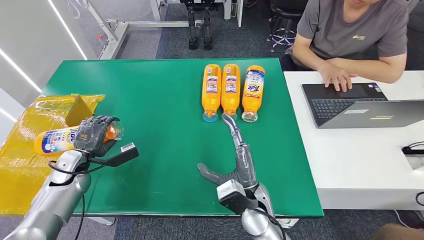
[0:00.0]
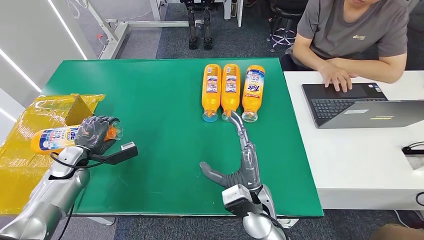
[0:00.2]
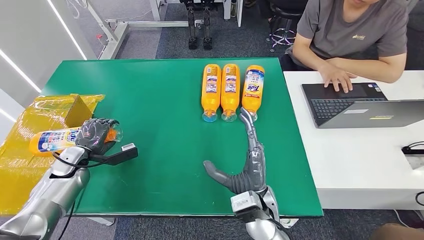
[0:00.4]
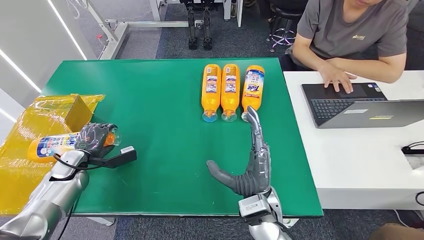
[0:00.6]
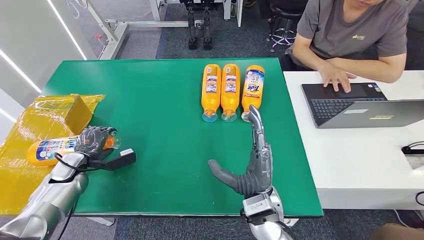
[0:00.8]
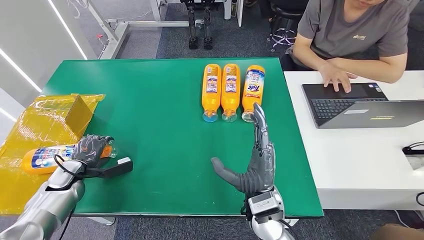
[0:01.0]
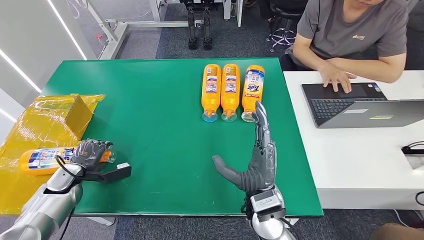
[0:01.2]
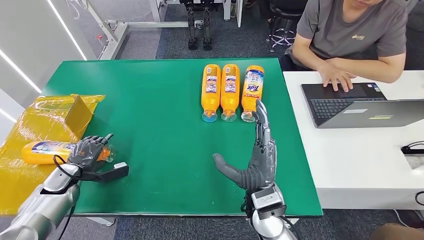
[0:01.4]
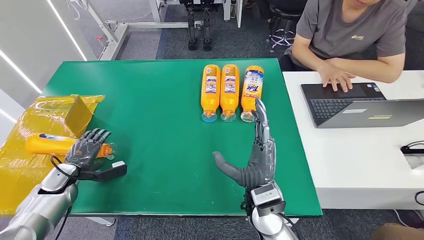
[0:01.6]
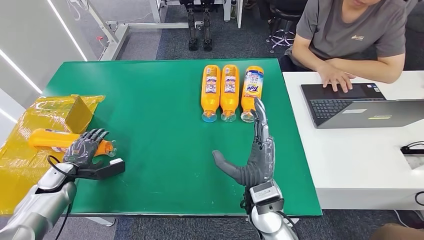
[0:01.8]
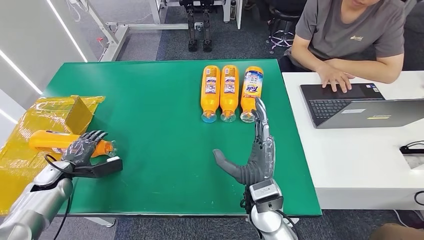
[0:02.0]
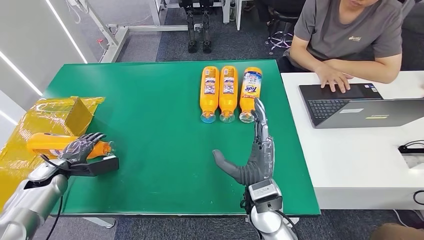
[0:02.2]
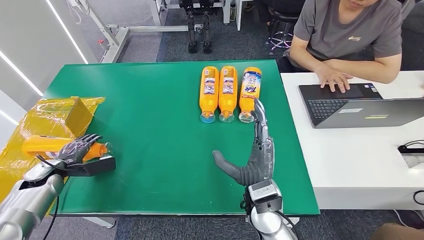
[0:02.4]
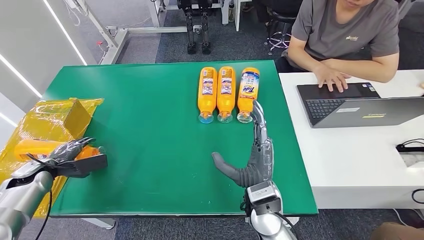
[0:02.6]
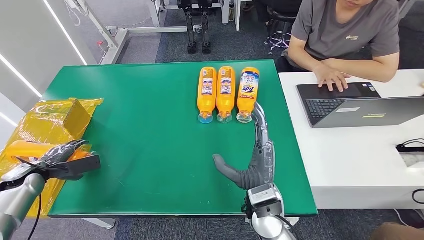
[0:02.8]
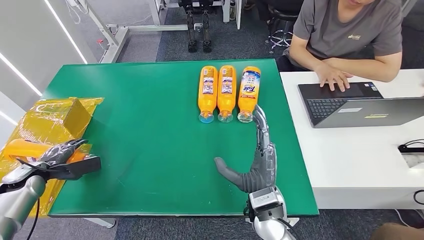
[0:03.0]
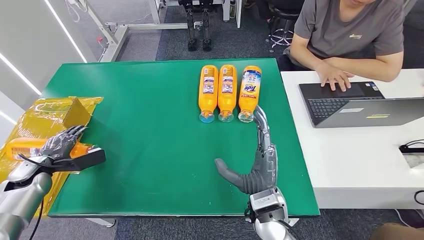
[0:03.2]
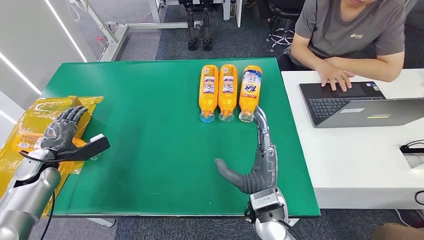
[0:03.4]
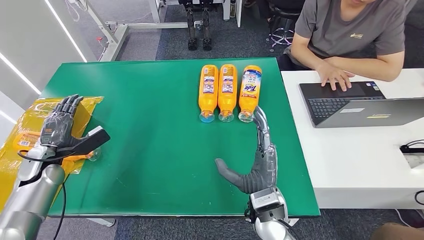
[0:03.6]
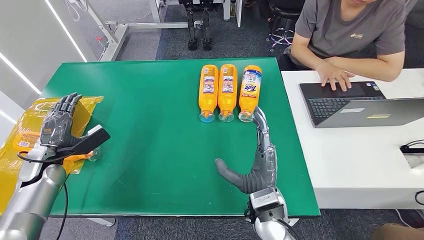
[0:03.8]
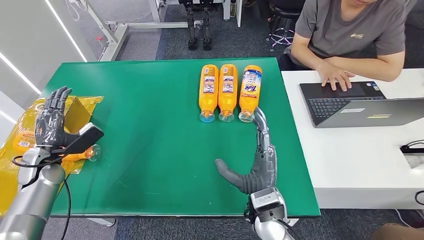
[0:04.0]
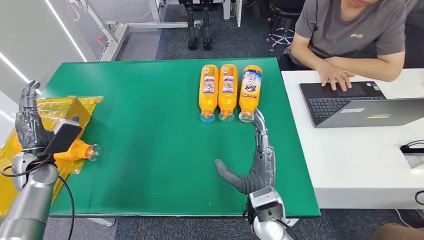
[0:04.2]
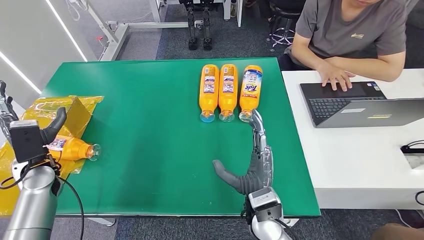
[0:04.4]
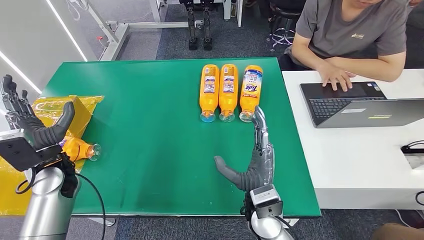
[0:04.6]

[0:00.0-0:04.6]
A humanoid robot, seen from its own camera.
Step, 0:00.0 to 0:04.6: Turn the bottle to the front side.
0:00.0 to 0:01.6: The left hand shifts some 5 cm to the left.
0:01.6 to 0:03.0: The left hand shifts about 5 cm to the left.

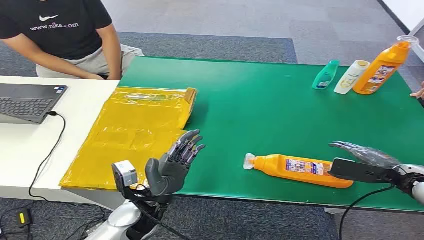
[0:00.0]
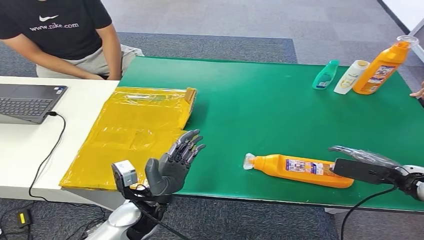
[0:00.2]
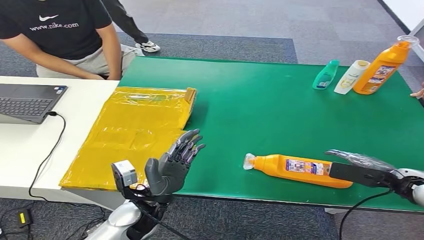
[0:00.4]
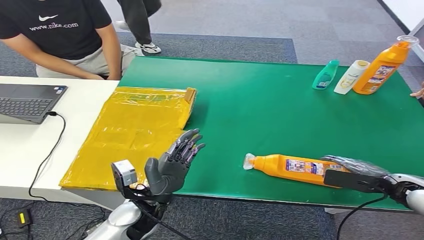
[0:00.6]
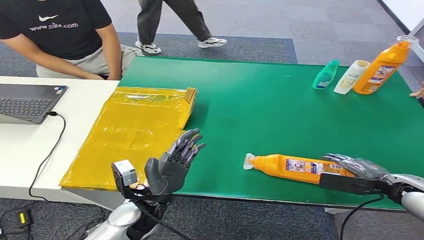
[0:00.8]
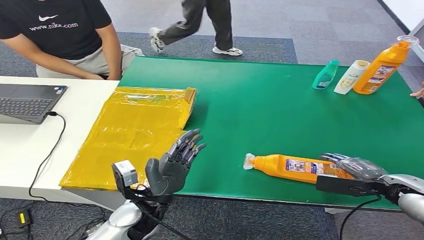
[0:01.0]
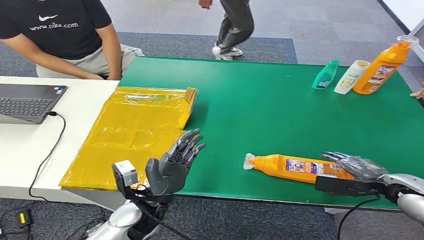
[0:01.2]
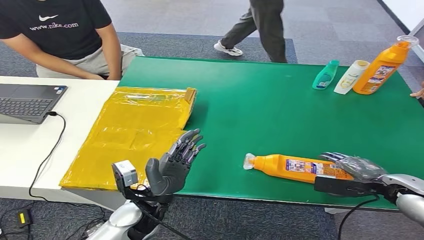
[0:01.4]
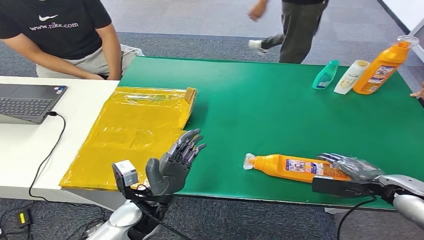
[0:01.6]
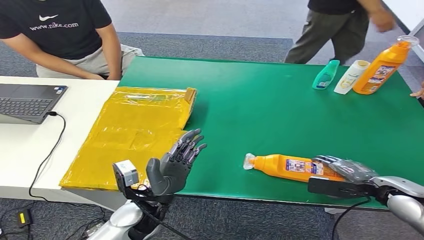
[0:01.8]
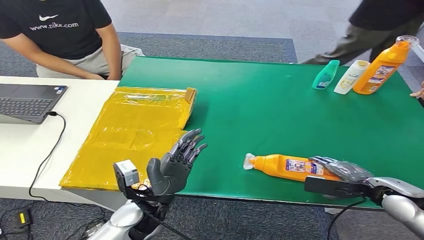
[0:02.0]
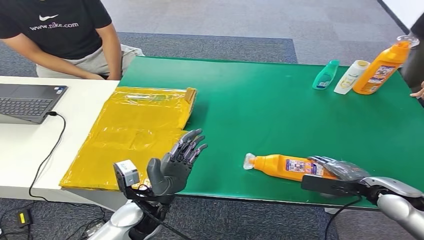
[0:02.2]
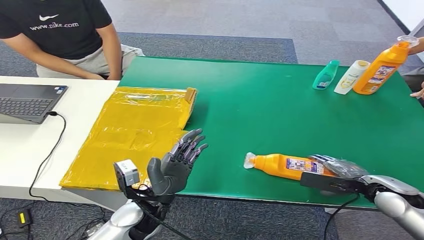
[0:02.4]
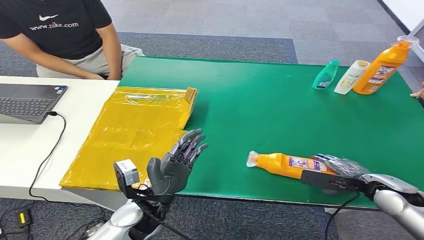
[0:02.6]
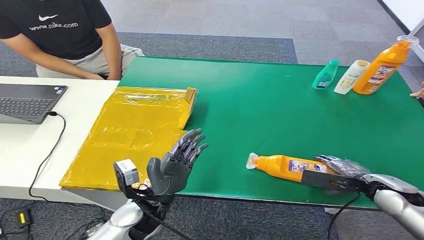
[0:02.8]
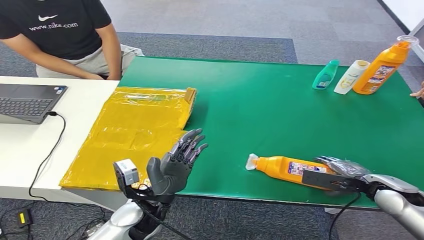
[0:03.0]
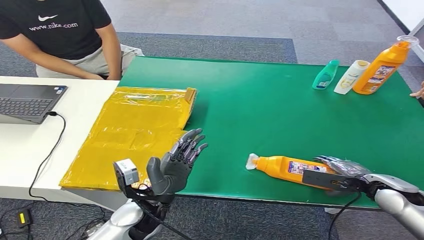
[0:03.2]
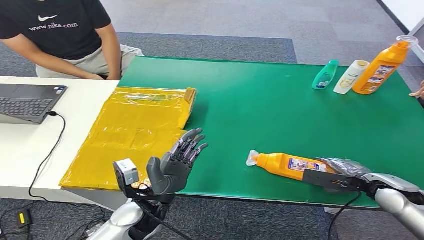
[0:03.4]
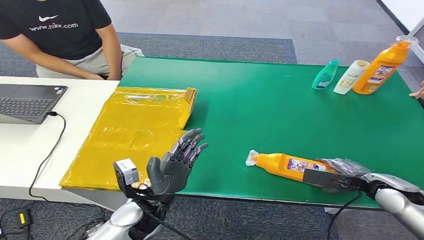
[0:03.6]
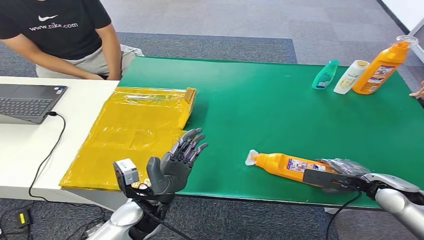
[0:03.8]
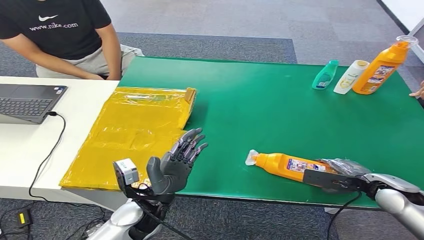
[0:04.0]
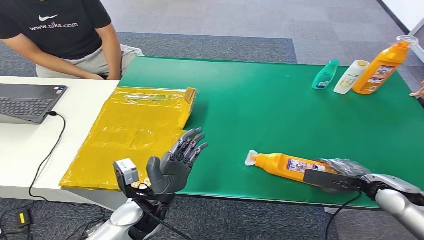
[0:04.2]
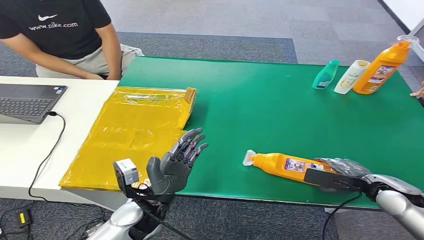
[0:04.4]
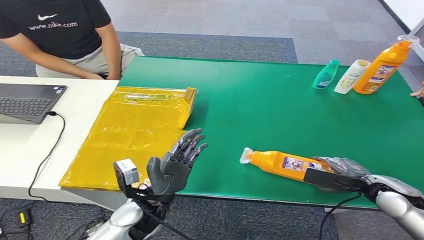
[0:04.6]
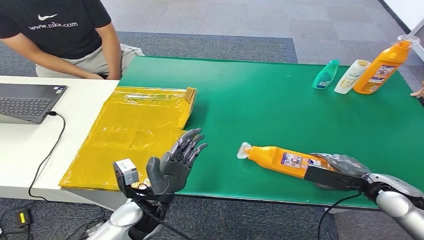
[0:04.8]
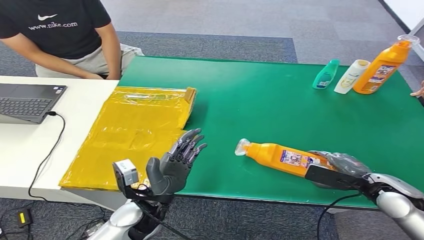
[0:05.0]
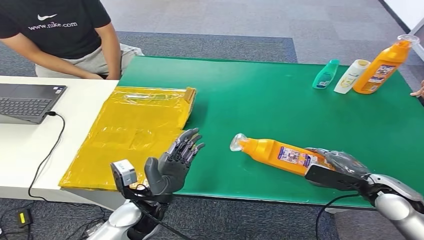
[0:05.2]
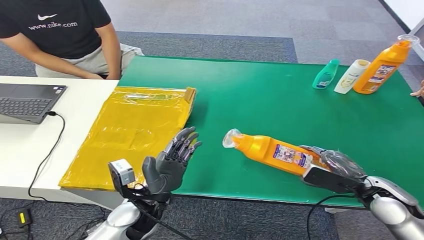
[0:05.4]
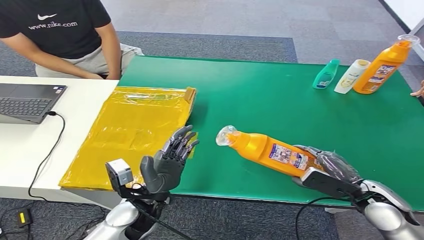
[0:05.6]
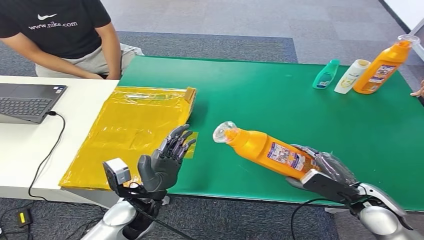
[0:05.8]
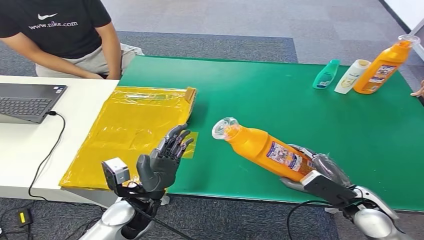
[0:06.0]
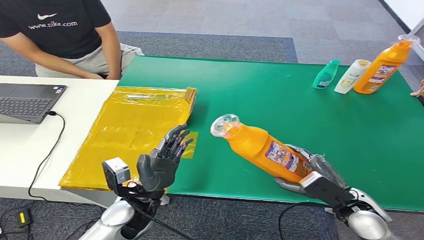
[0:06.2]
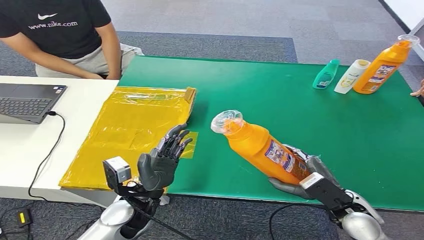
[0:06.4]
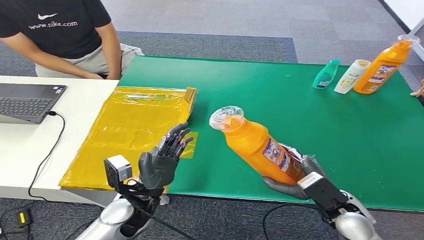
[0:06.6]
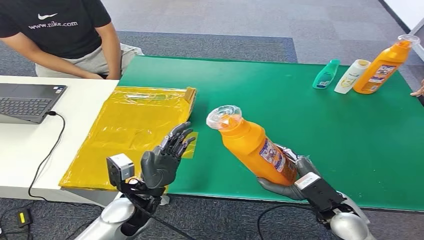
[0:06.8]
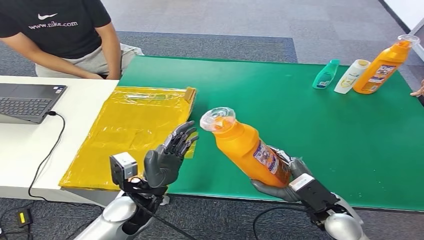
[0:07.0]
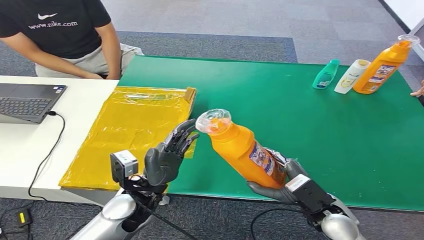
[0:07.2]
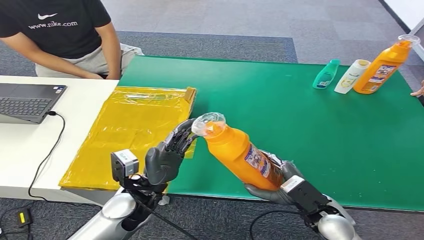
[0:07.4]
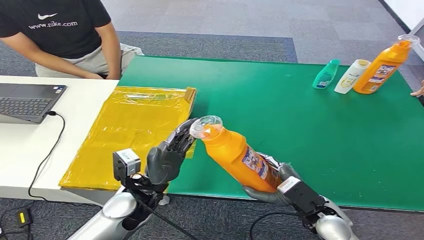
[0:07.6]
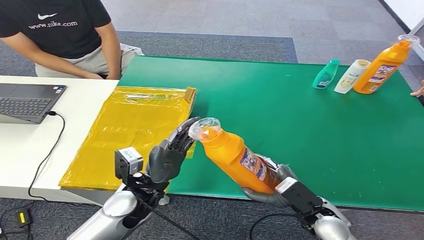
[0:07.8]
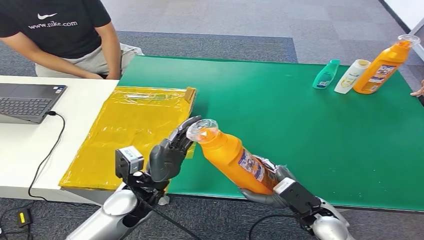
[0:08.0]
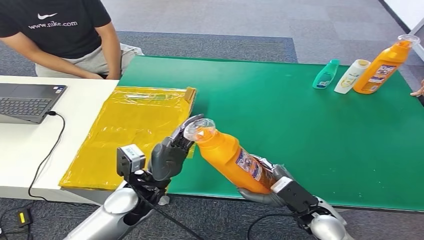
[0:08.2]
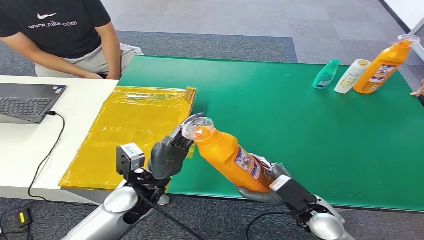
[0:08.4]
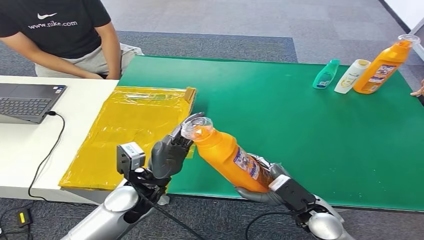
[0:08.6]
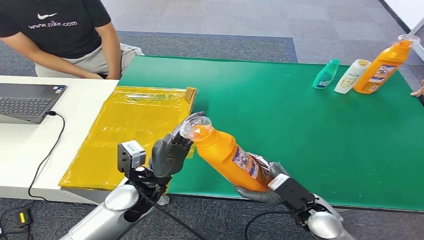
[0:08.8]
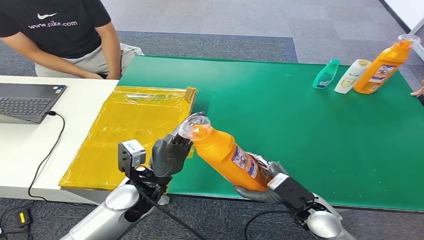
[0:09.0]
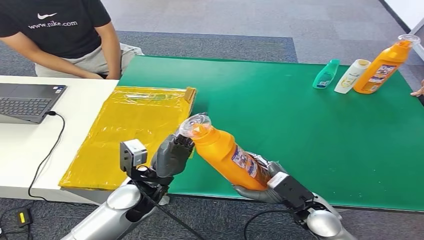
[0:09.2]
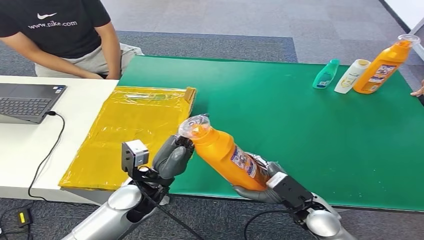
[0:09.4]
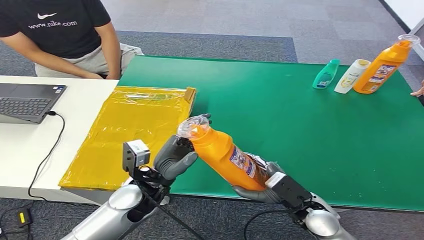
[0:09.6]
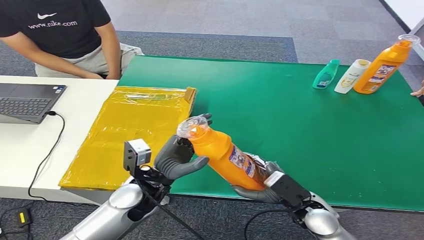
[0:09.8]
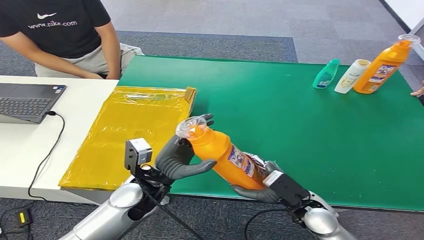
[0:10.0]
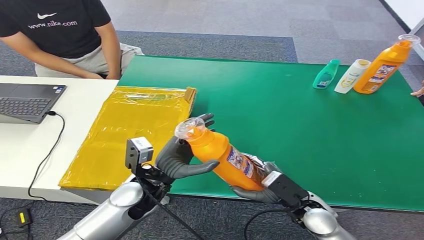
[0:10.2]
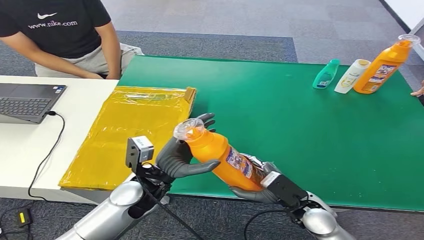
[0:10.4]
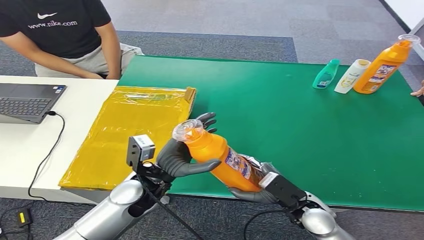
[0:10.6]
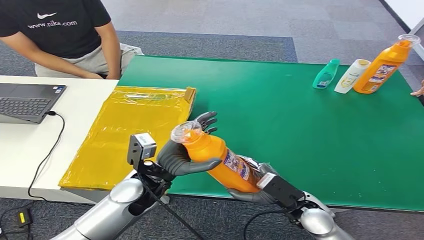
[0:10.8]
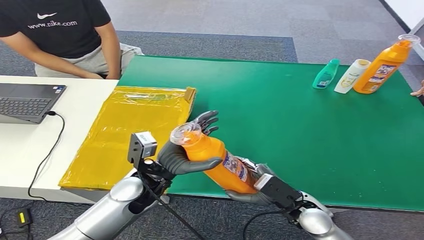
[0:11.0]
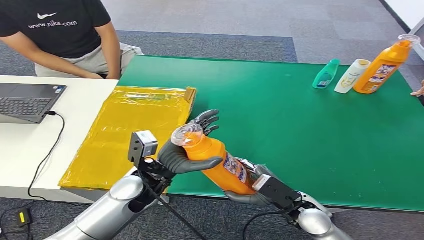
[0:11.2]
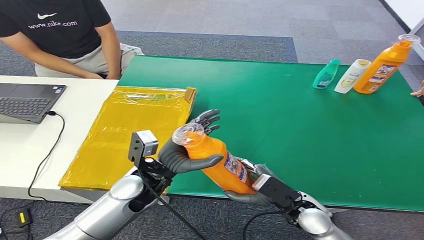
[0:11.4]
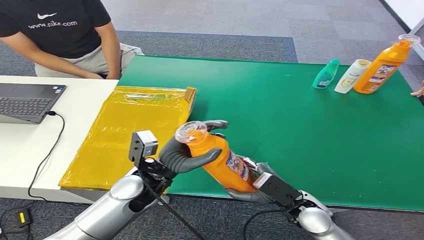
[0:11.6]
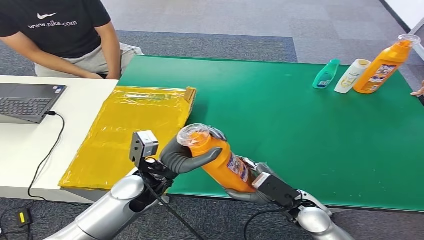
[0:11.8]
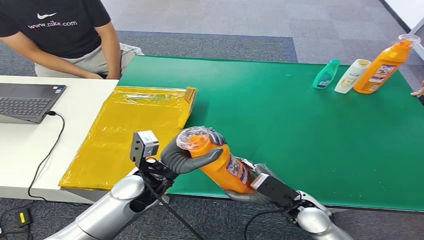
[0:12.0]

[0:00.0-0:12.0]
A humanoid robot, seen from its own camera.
Step, 0:00.0 to 0:05.8: Pick up the bottle from the table.
0:01.6 to 0:04.4: The hands stay close to where they were, moving slightly.
0:04.4 to 0:06.0: The right hand travels to the left and backward by approximately 10 cm.
0:06.0 to 0:07.6: The right hand heads to the left, covering some 10 cm.
0:07.6 to 0:09.0: There are only small adjustments of the hands.
0:09.0 to 0:10.4: Both hands stay put.
0:10.4 to 0:12.0: The hands move only a little.
